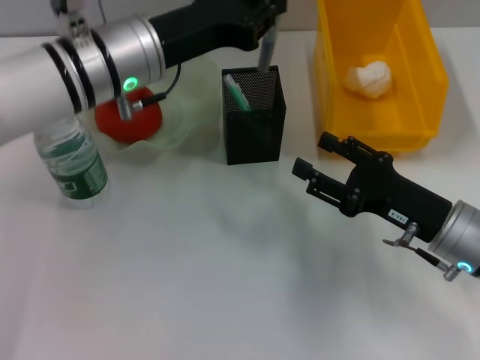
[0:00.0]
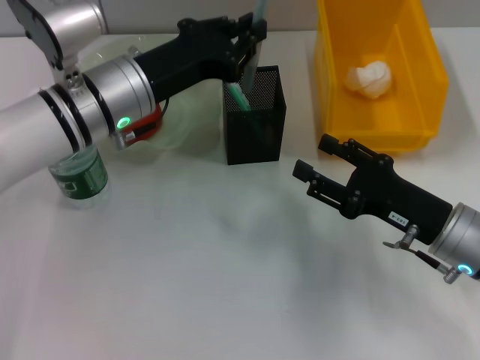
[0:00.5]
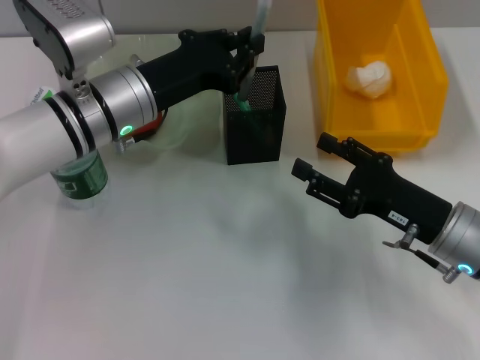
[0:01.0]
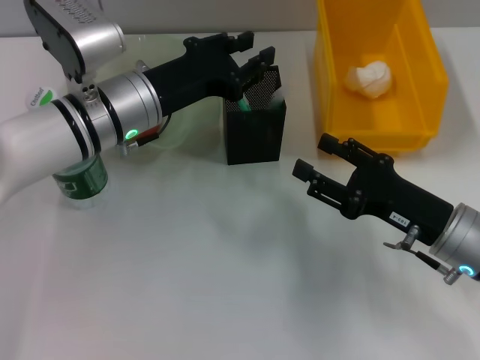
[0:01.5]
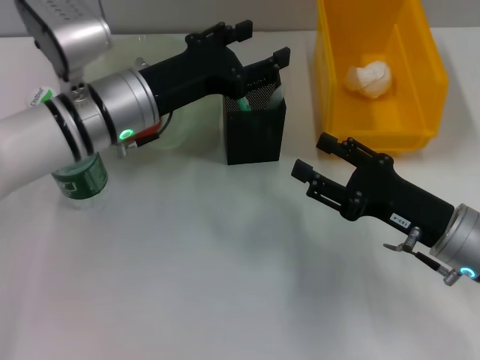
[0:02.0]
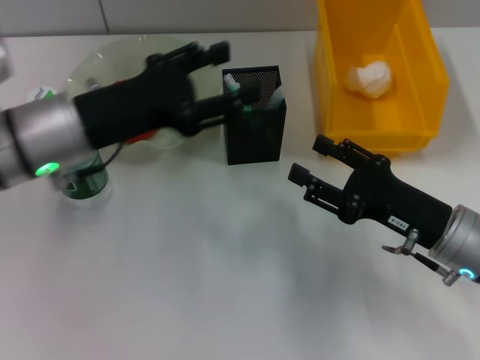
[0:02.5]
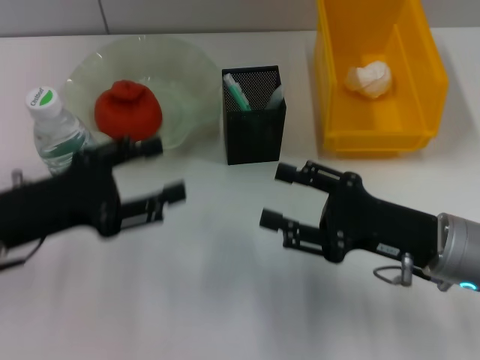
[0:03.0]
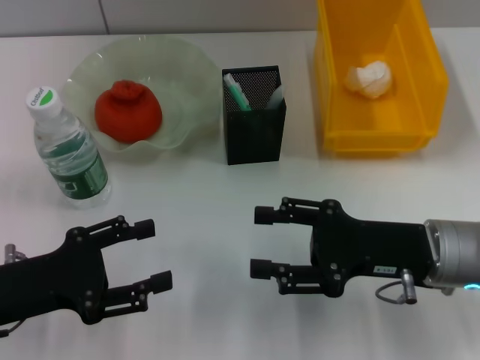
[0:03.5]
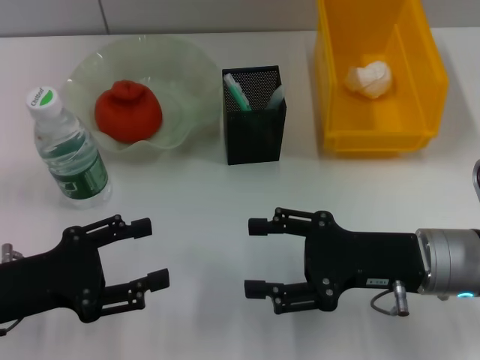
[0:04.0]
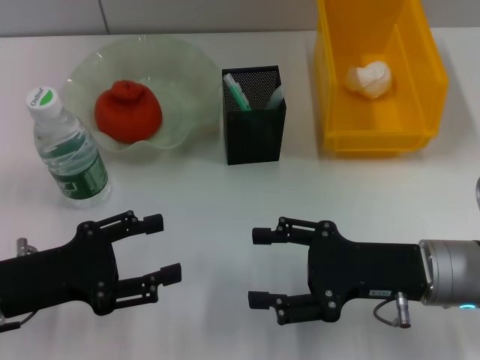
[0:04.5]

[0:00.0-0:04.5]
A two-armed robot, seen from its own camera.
0:00.0 to 0:02.0: The left gripper opens.
0:02.0 to 0:04.5: The left gripper is displaced backward and to the left by some 20 cm.

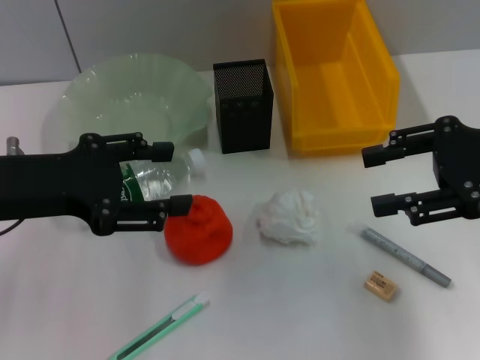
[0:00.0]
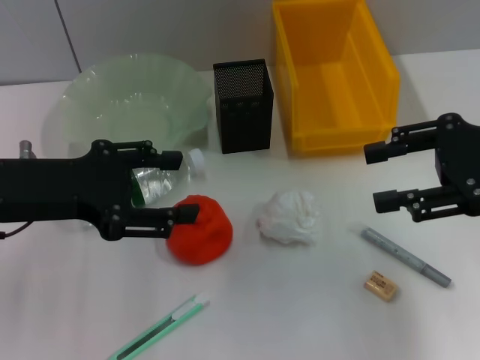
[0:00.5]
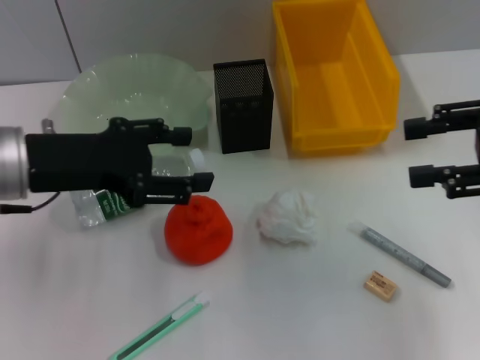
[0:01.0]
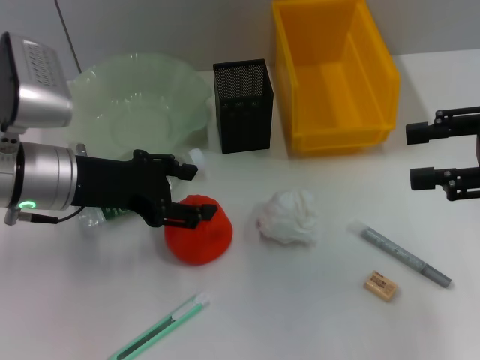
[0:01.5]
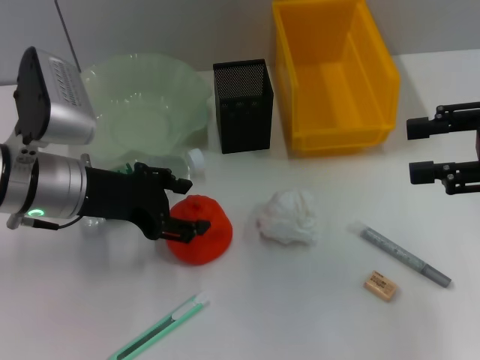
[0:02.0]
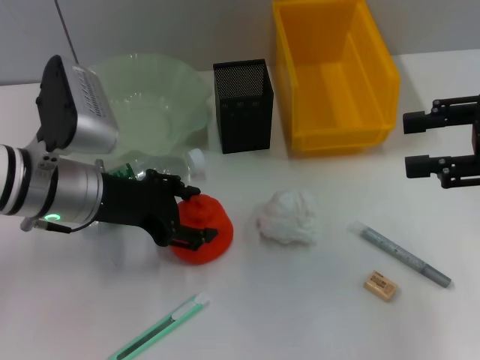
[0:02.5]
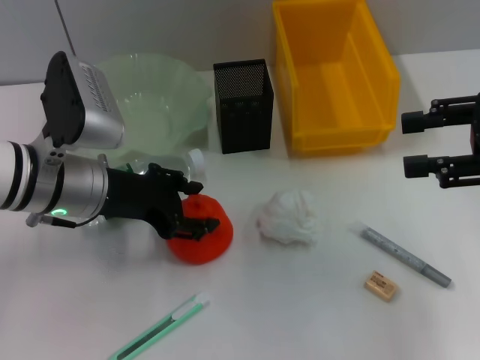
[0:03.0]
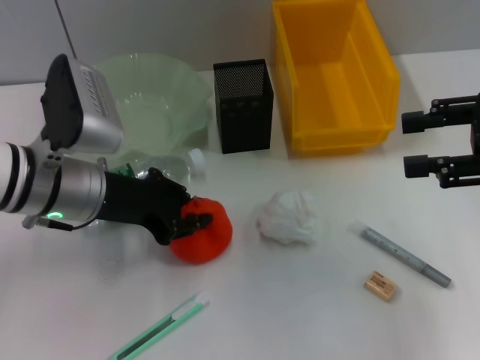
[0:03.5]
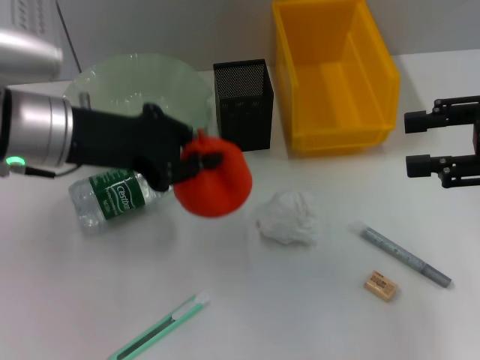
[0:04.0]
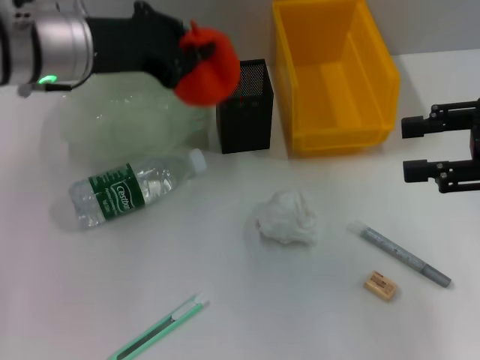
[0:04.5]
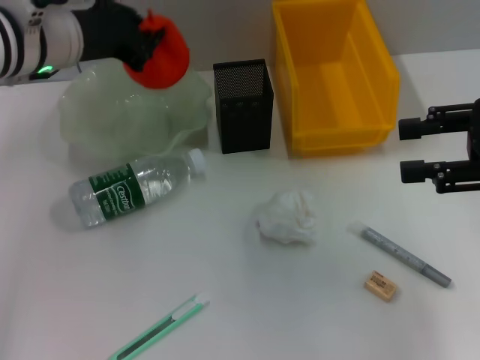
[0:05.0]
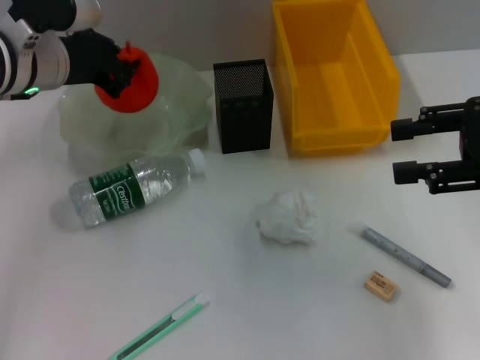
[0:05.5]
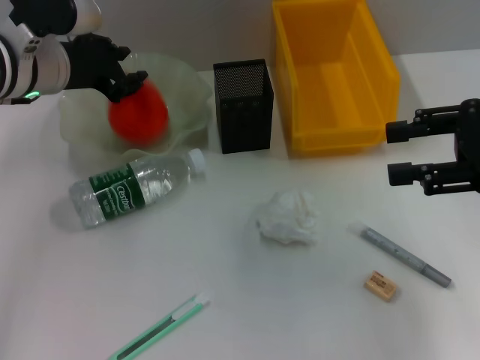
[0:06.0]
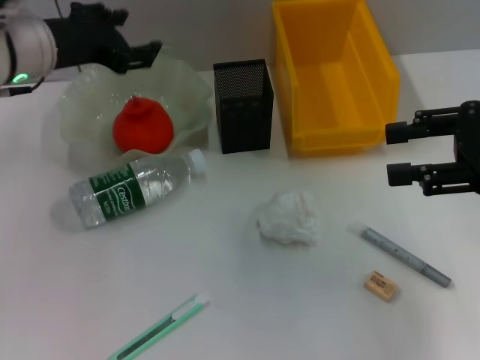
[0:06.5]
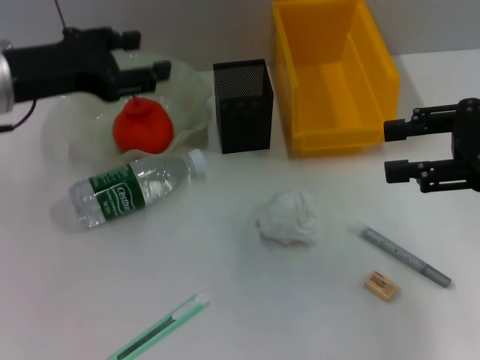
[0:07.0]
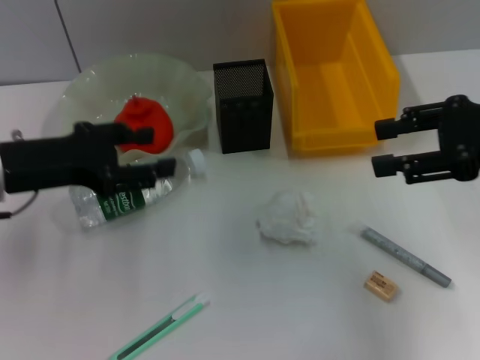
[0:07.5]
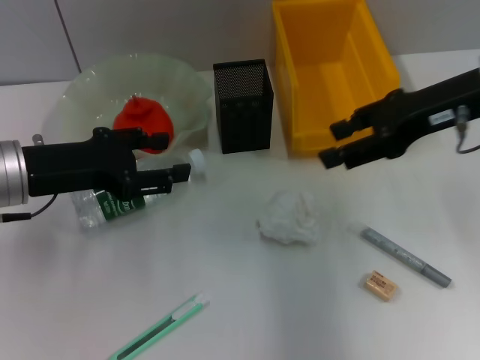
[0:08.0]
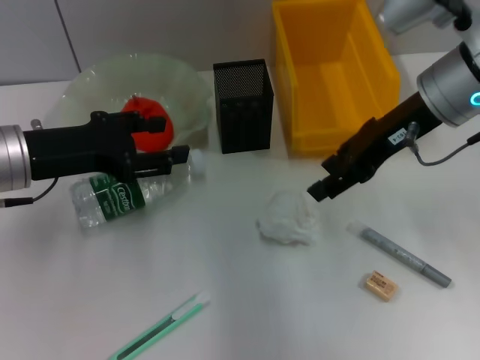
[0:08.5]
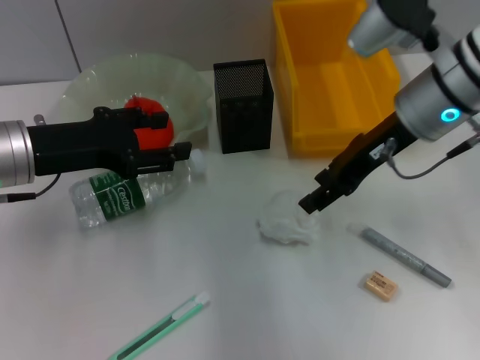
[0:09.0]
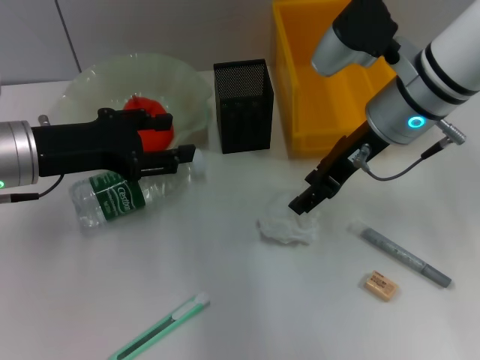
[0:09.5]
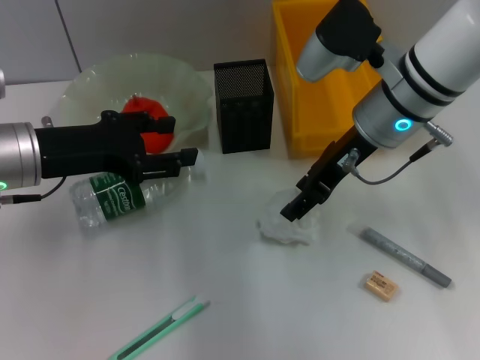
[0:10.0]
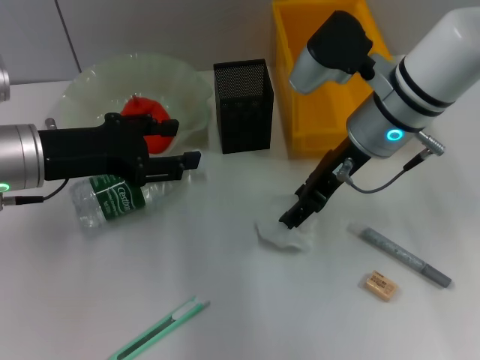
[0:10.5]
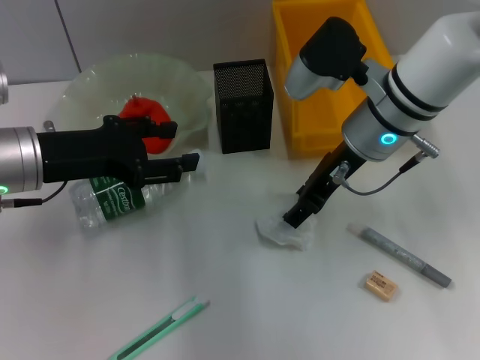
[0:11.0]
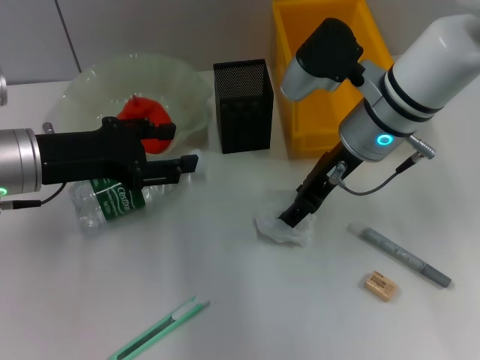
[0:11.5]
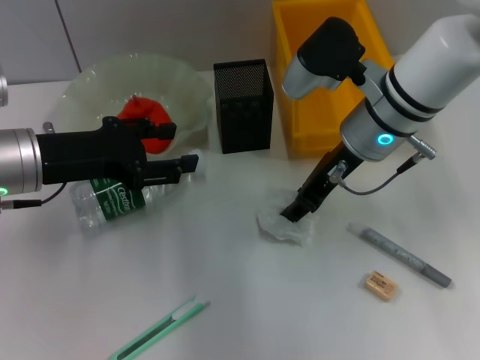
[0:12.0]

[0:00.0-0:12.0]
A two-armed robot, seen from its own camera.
Step, 0:00.0 to 0:03.0: Grab the orange with the left hand.
Step, 0:03.5 to 0:06.0: Place the orange into the fruit bowl with the left hand.
Step, 0:06.5 to 0:12.0: Grab the paper ball with the right hand.
0:00.0 to 0:02.0: The left gripper heads downward and forward, covering some 10 cm.
0:02.0 to 0:04.0: The left gripper closes up.
0:04.0 to 0:06.0: The left gripper travels forward by approximately 10 cm.
0:06.0 to 0:08.0: The right gripper heads to the left and forward, covering some 10 cm. The left gripper goes some 10 cm backward, and opens its fingers.
0:08.0 to 0:10.0: The right gripper moves to the left, roughly 10 cm.
0:10.0 to 0:12.0: There are only small adjustments of the grippers.

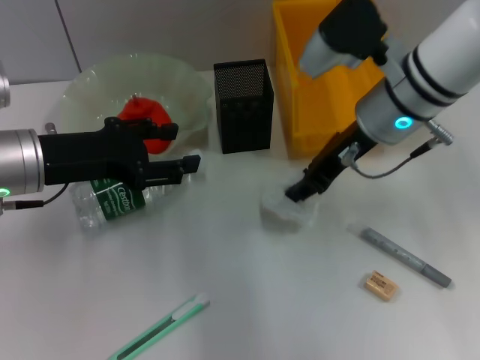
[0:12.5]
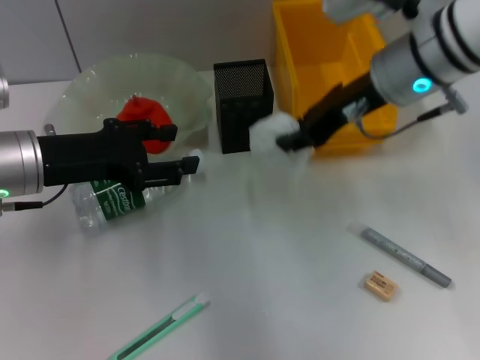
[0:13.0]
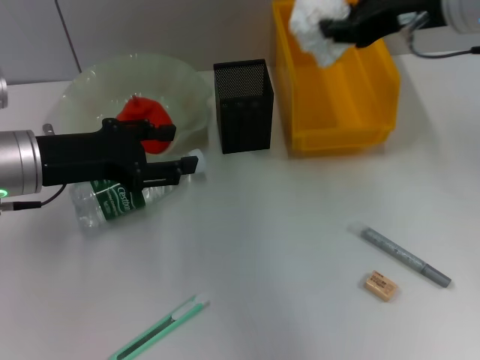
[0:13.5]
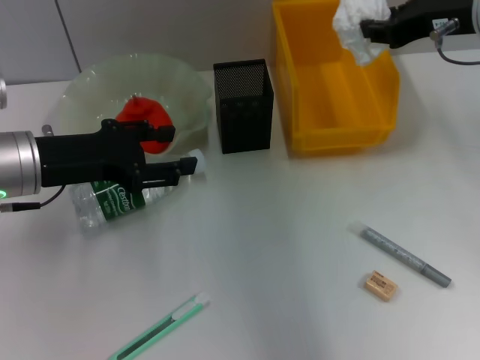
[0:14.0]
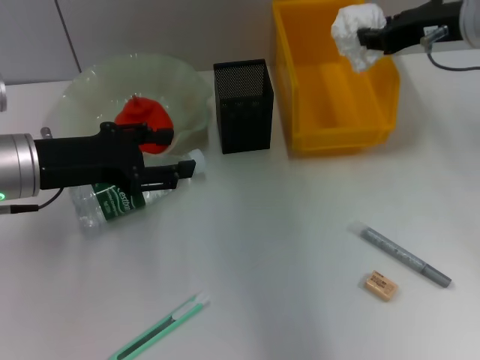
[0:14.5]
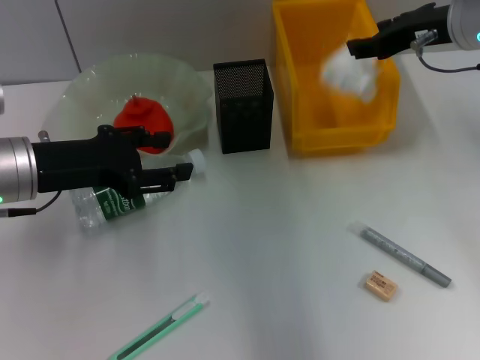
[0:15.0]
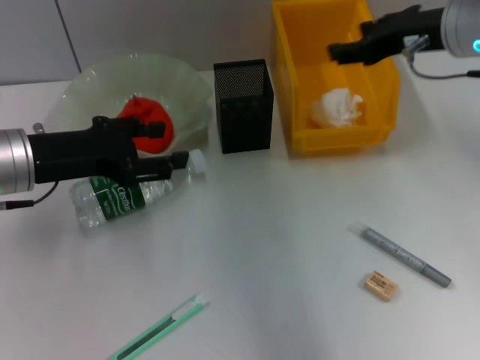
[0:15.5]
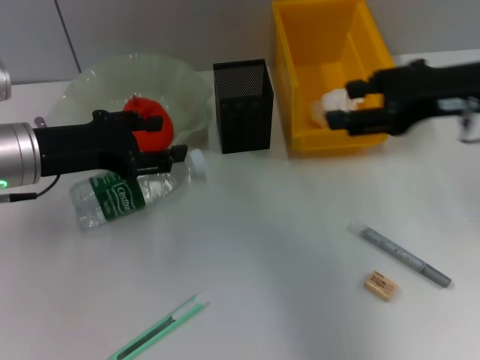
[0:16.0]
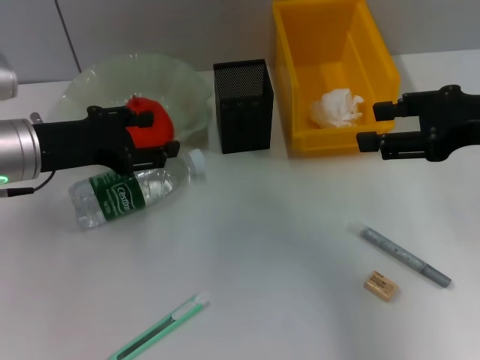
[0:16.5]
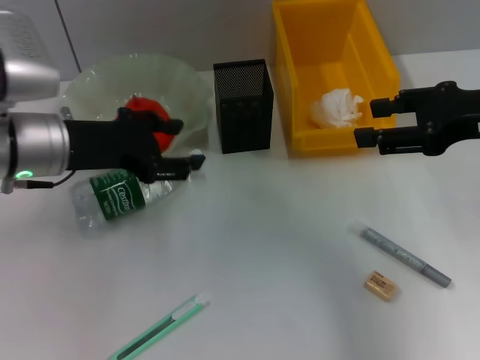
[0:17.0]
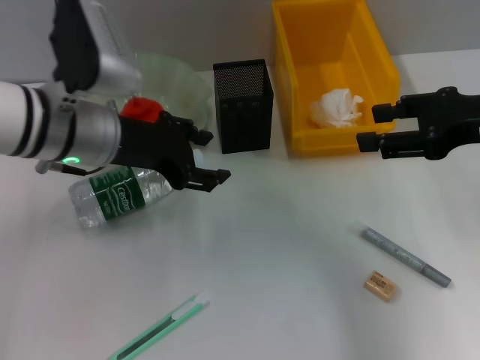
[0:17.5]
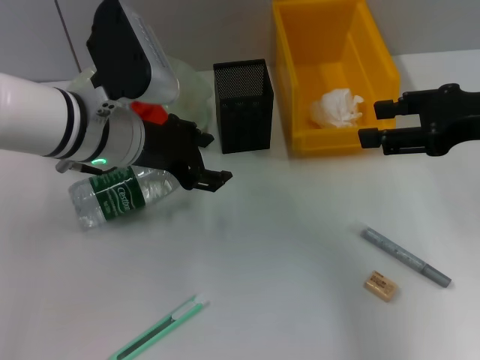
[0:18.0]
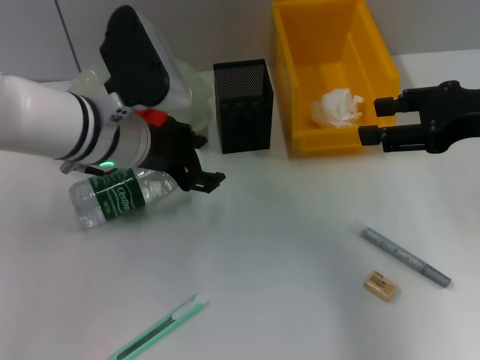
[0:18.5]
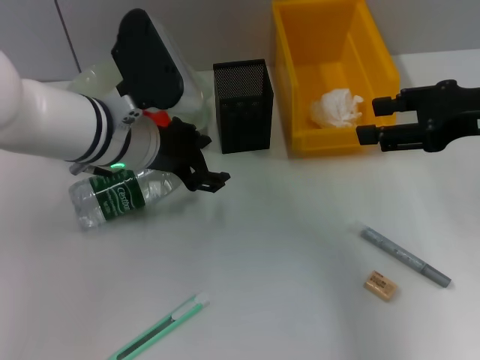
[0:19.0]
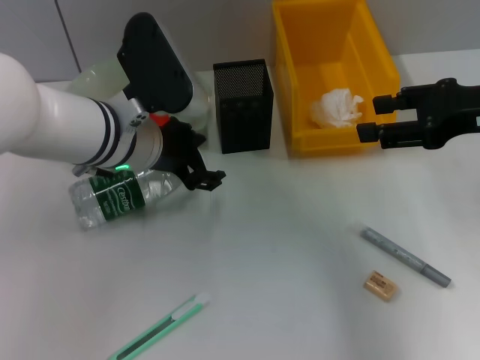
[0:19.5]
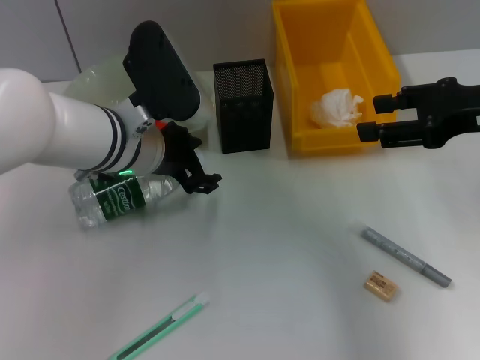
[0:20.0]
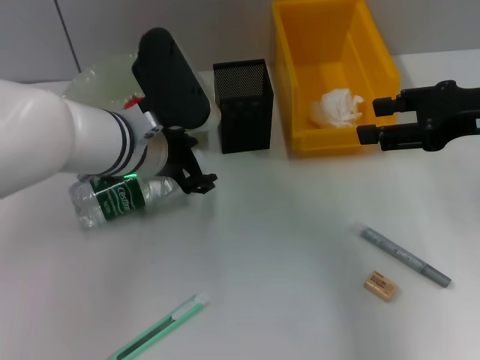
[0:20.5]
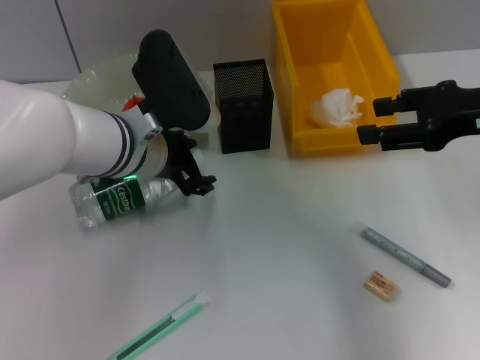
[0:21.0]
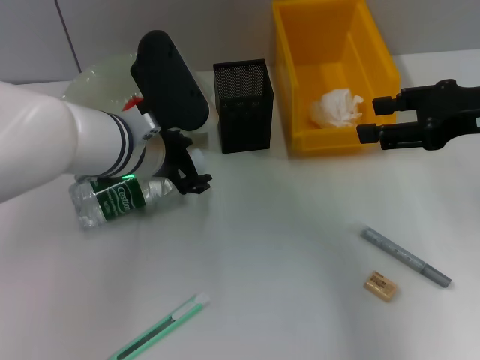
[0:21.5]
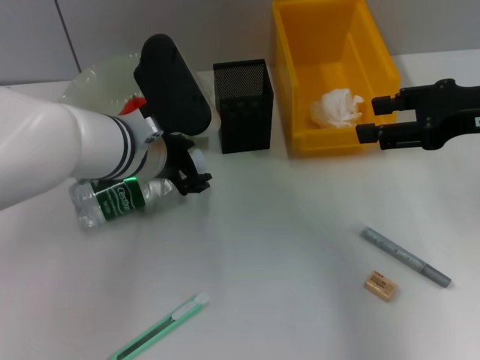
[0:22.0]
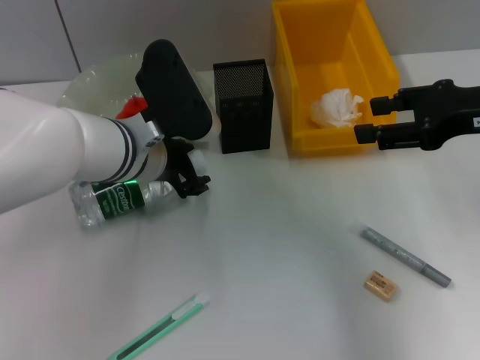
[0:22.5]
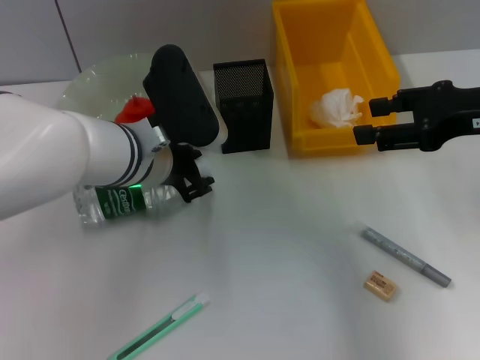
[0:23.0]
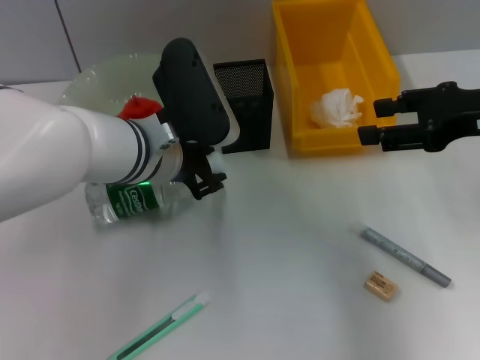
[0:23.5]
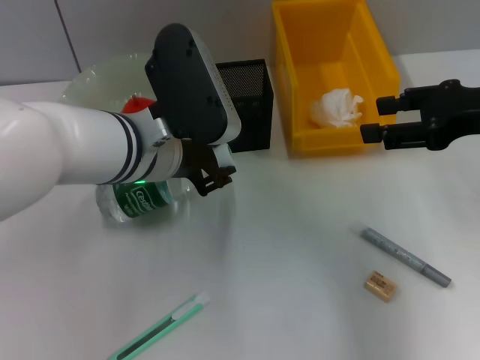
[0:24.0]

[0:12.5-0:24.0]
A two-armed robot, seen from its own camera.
Step, 0:12.5 to 0:15.0: Place the paper ball into the trash can with the right hand.
Step, 0:15.5 to 0:23.0: Grab the water bottle with the left hand.
0:12.5 to 0:14.5: The right gripper shifts about 10 cm to the right and upward.
0:14.5 to 0:16.5: The right gripper is displaced backward by some 10 cm, and opens.
0:16.5 to 0:18.5: The left gripper moves to the right, some 10 cm.
0:18.5 to 0:24.0: The grippers move only a little.
